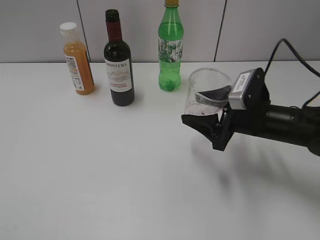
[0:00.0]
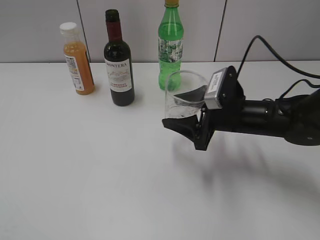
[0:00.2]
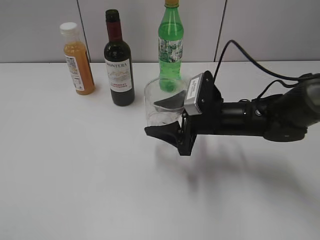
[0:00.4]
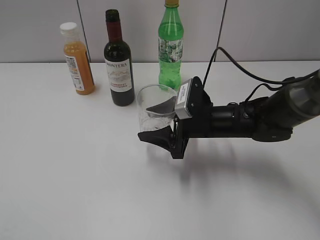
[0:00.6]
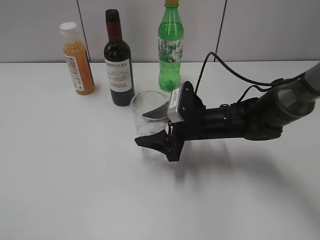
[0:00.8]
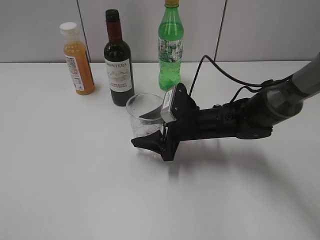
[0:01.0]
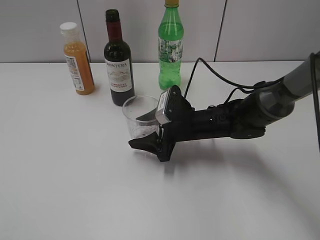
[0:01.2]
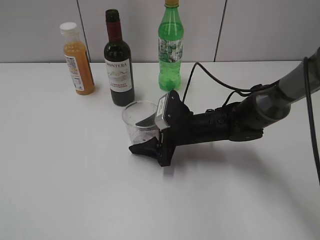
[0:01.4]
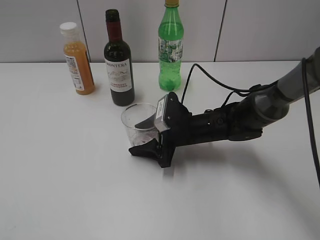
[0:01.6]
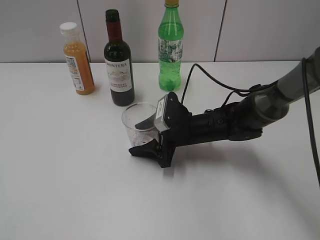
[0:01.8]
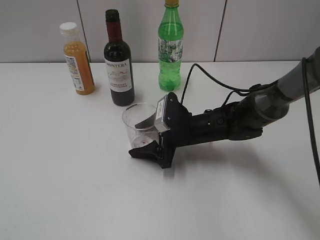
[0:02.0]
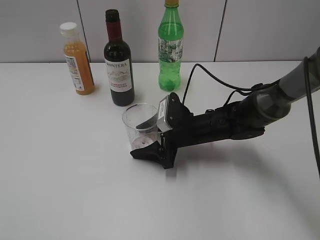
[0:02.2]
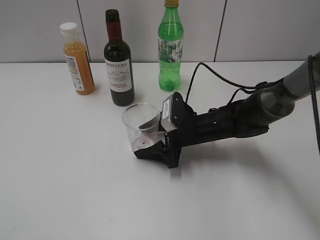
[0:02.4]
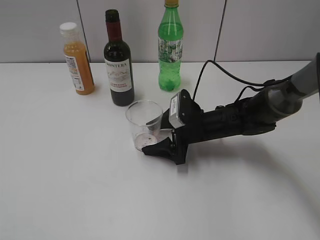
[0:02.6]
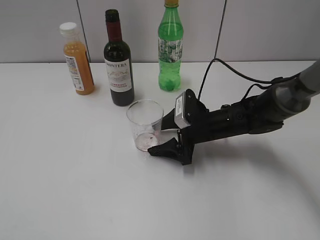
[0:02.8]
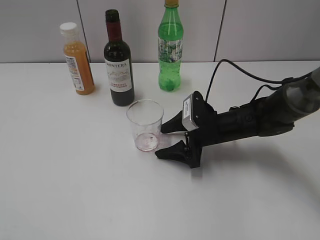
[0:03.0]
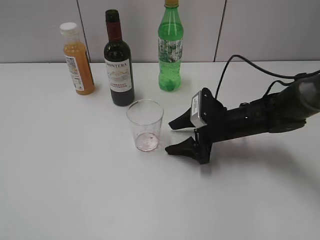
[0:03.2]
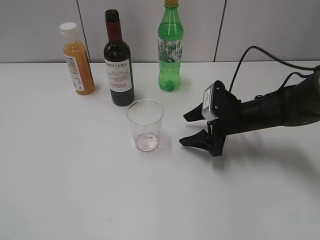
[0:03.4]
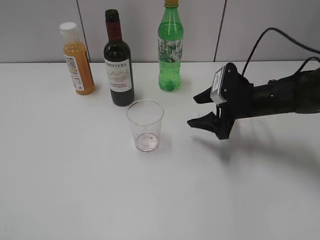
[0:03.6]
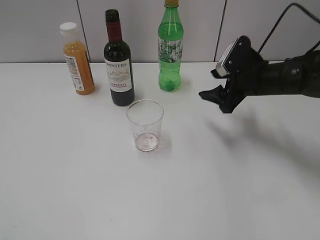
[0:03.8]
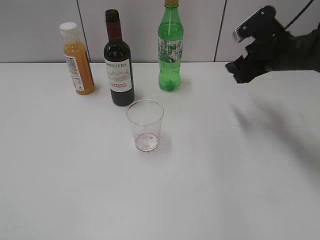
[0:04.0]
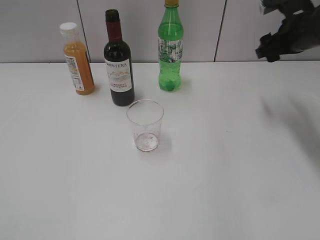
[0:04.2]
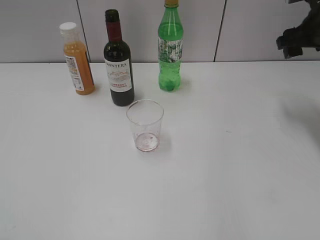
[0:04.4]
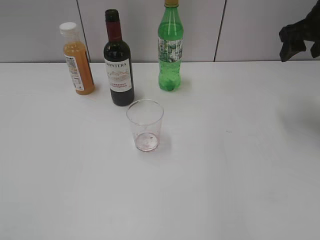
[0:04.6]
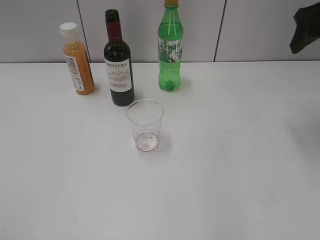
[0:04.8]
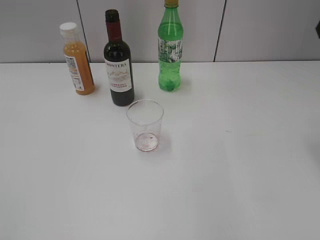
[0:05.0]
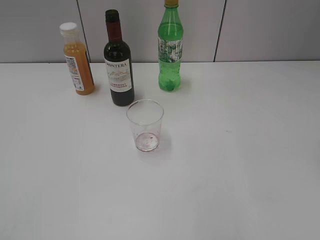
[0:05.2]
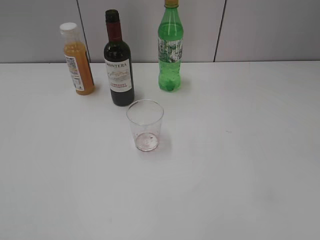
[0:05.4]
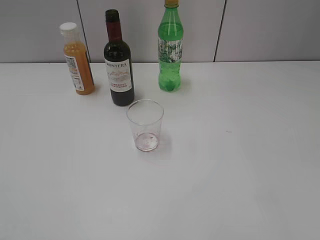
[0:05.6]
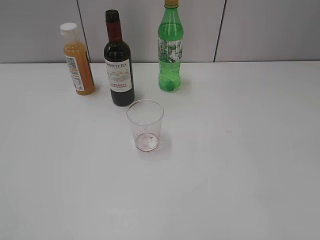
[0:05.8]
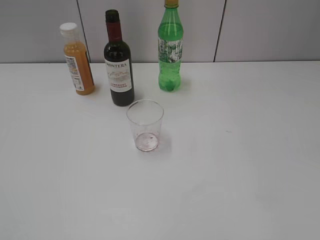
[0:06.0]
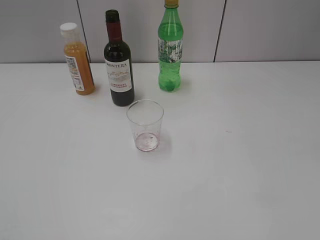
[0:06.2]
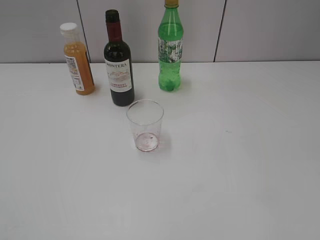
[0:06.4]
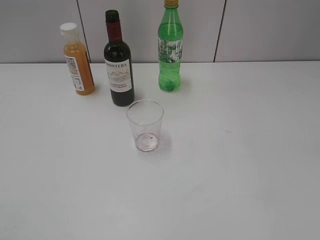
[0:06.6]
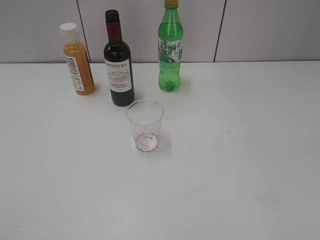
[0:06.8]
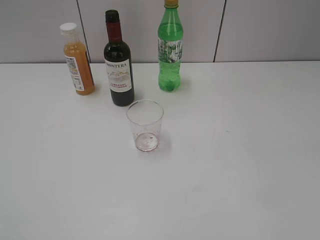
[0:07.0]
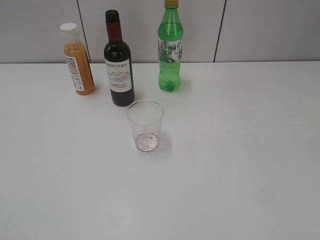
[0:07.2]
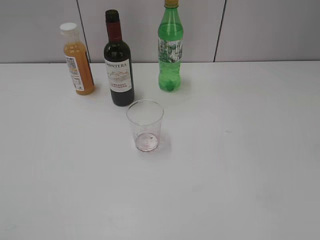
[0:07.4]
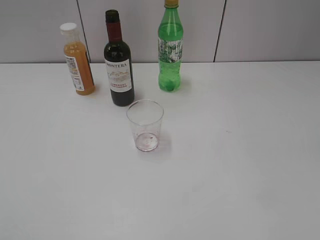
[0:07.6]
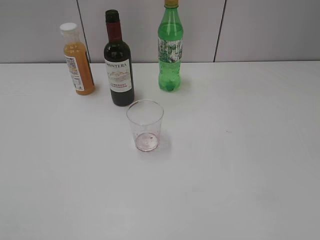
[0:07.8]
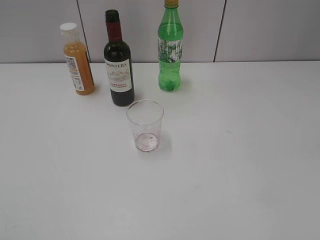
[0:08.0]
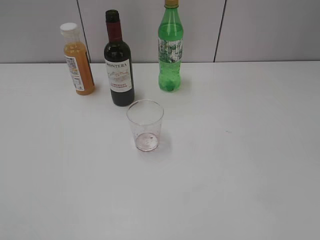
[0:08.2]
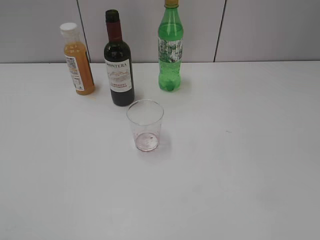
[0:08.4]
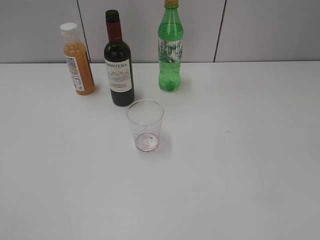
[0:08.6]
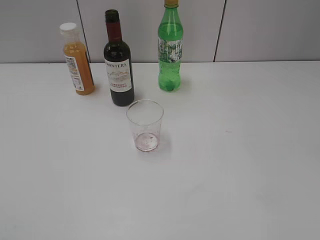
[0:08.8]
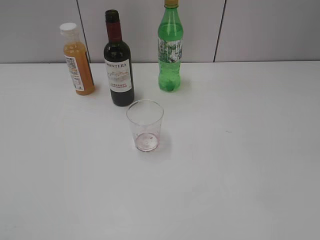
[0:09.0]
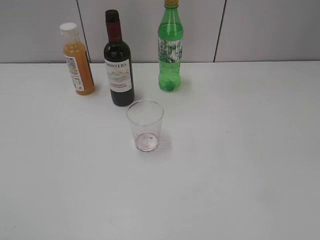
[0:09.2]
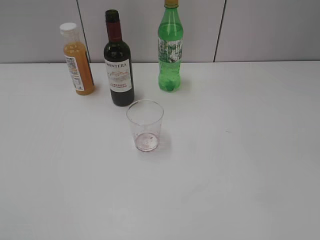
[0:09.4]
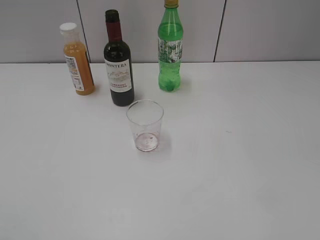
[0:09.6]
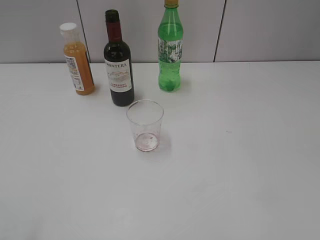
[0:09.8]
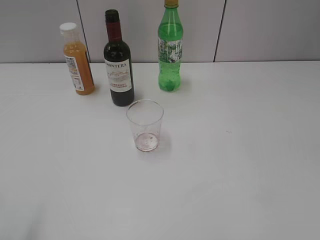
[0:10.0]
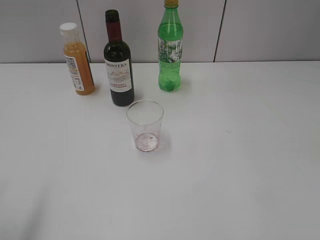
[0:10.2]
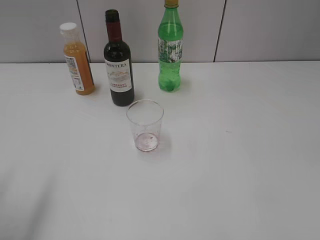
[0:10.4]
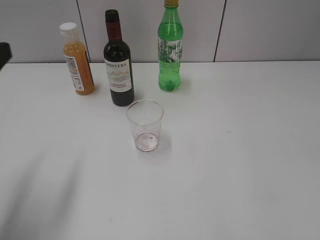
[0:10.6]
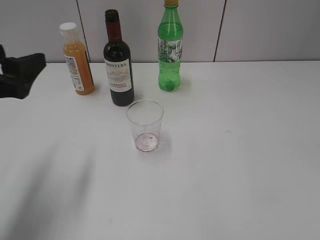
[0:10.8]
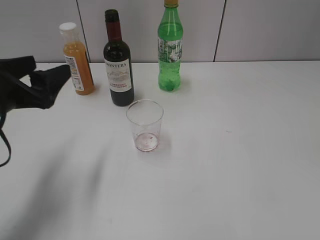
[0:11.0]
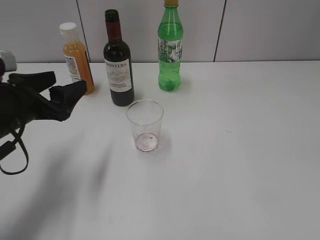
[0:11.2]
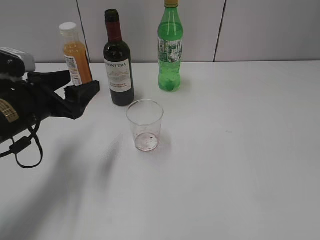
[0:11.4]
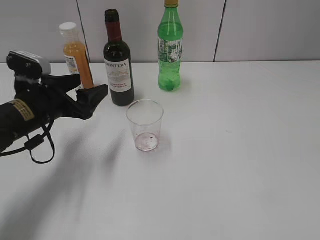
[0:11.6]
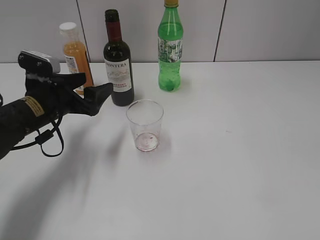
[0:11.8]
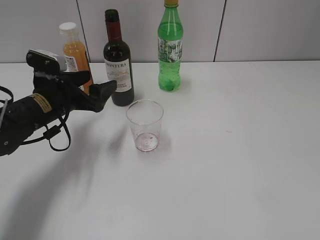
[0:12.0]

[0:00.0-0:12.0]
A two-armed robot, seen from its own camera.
Step, 0:00.0 to 0:03.0: Place the transparent cup on the table with right gripper.
0:00.0 to 0:01.6: The right gripper is displaced to the left and downward by approximately 15 cm.
0:01.6 to 0:03.0: The right gripper goes approximately 5 cm to the right, and opens its fingers.
0:03.0 to 0:04.4: The right gripper goes roughly 25 cm upward, to the right and forward.
0:04.4 to 0:06.0: The right gripper moves backward, some 35 cm.
0:07.6 to 0:09.0: The two grippers keep their place.
0:09.0 to 0:10.4: The left gripper travels forward by approximately 15 cm, and opens up.
0:10.4 to 0:12.0: The left gripper is displaced forward, downward and to the right by roughly 25 cm.

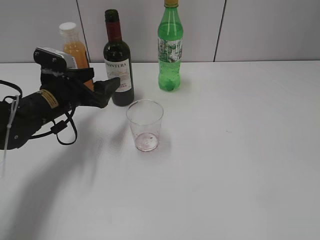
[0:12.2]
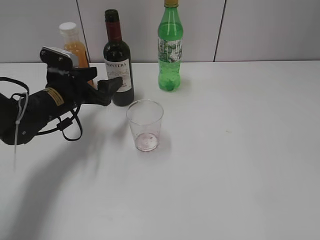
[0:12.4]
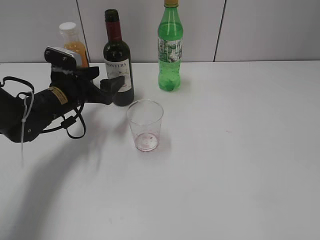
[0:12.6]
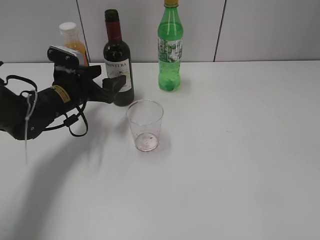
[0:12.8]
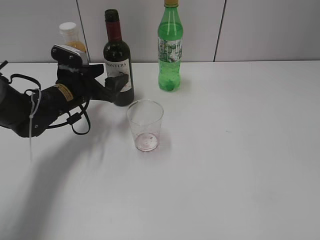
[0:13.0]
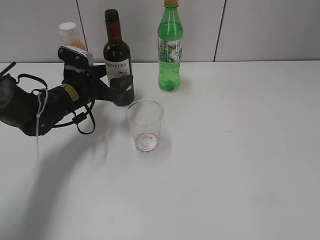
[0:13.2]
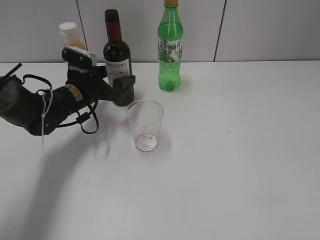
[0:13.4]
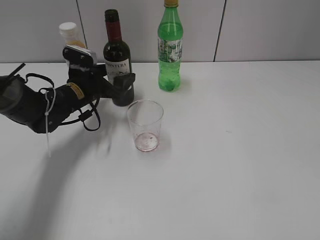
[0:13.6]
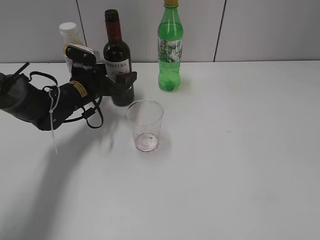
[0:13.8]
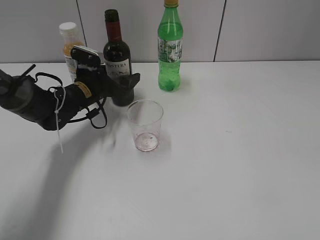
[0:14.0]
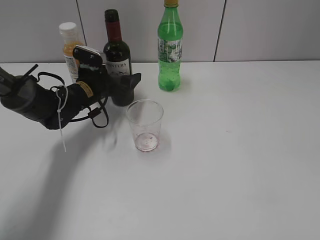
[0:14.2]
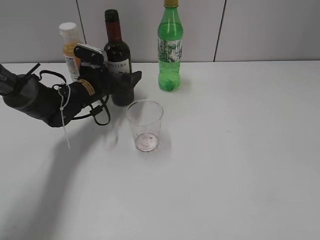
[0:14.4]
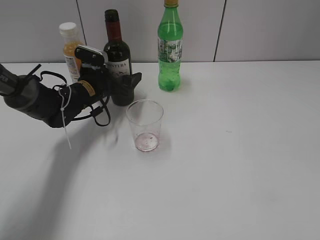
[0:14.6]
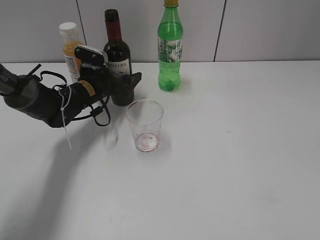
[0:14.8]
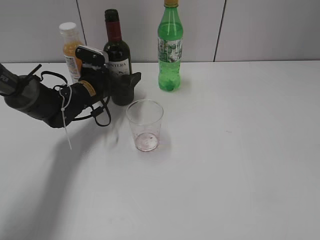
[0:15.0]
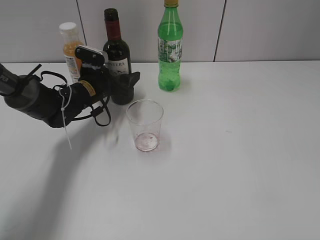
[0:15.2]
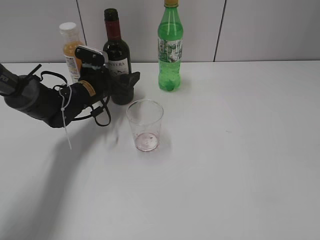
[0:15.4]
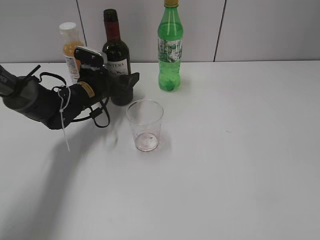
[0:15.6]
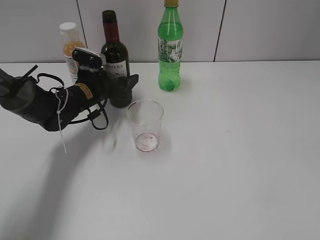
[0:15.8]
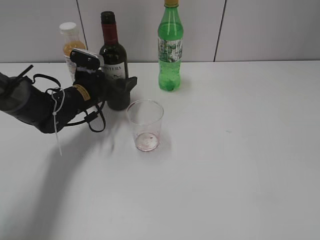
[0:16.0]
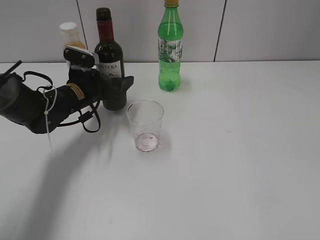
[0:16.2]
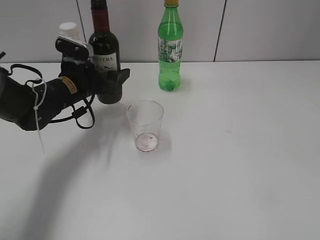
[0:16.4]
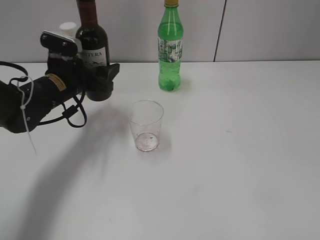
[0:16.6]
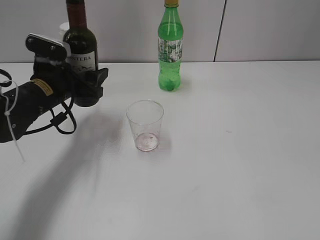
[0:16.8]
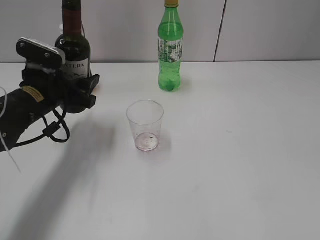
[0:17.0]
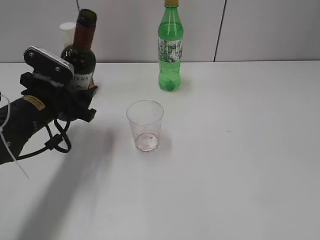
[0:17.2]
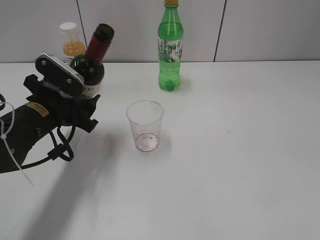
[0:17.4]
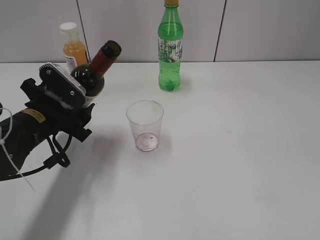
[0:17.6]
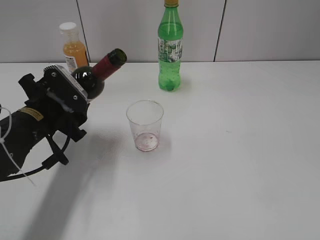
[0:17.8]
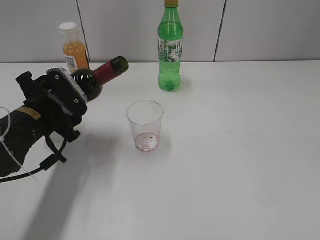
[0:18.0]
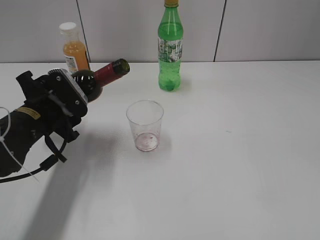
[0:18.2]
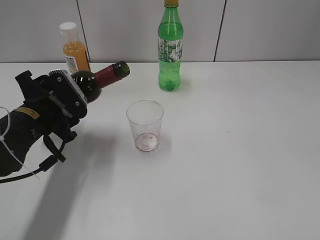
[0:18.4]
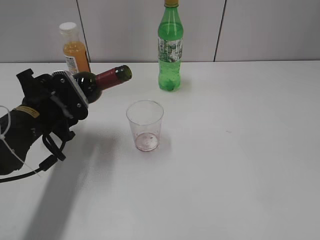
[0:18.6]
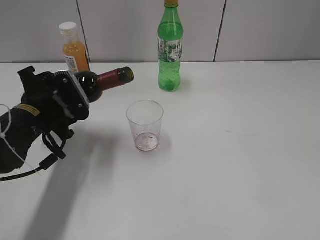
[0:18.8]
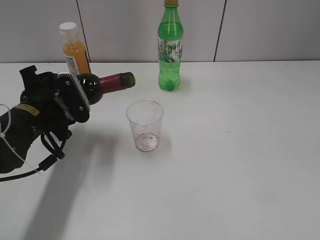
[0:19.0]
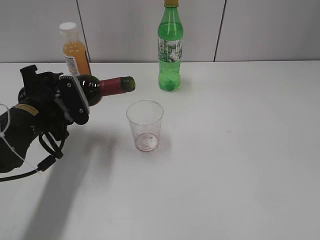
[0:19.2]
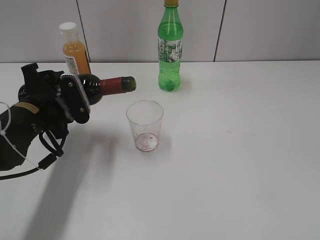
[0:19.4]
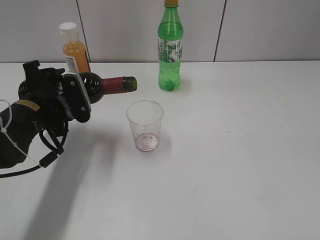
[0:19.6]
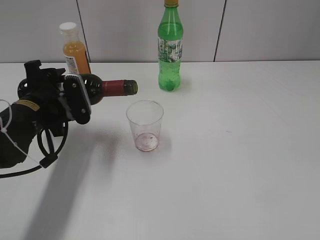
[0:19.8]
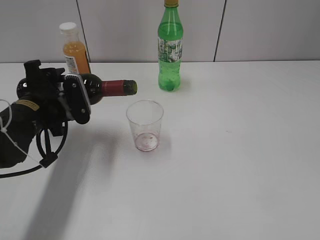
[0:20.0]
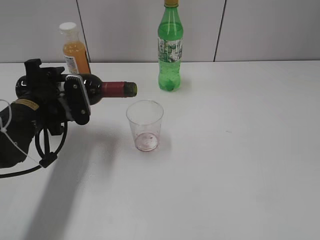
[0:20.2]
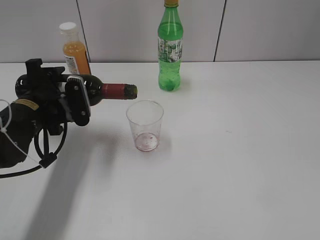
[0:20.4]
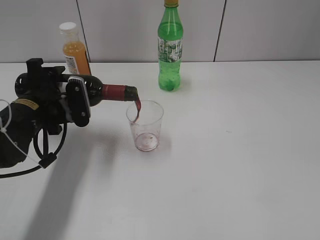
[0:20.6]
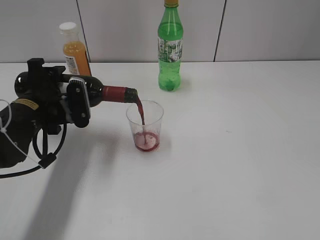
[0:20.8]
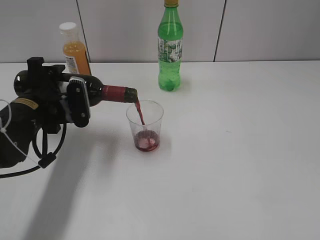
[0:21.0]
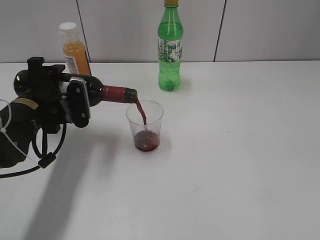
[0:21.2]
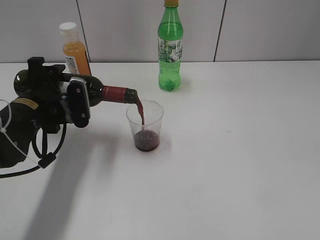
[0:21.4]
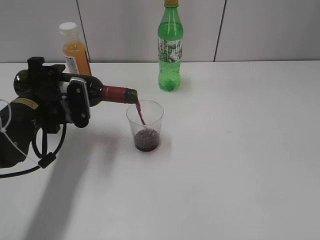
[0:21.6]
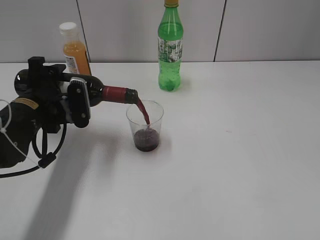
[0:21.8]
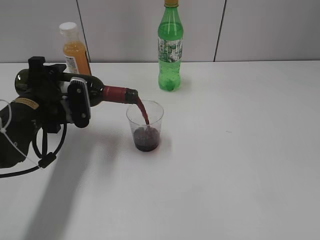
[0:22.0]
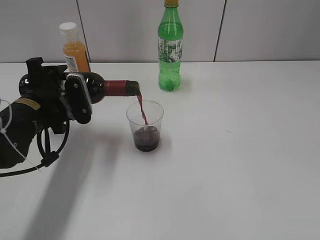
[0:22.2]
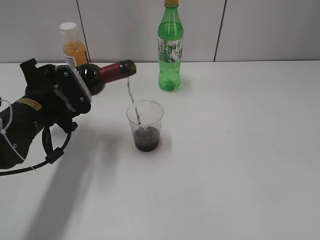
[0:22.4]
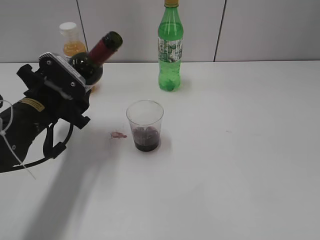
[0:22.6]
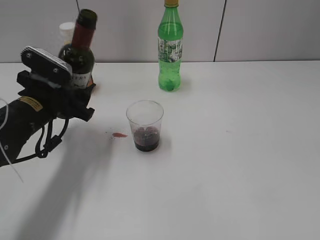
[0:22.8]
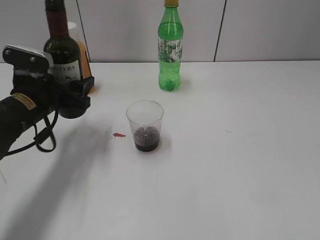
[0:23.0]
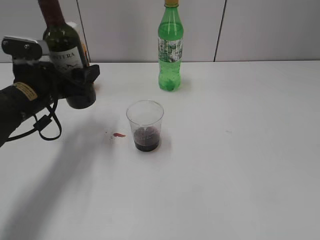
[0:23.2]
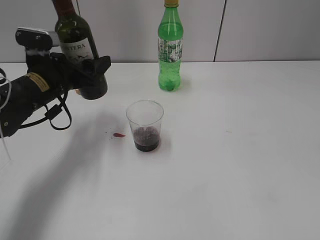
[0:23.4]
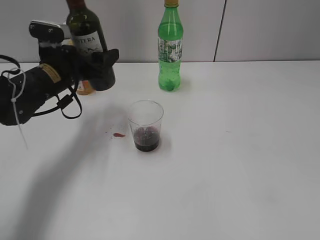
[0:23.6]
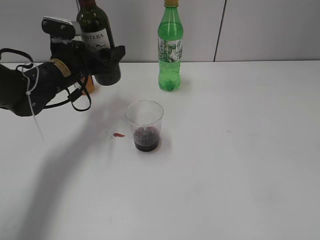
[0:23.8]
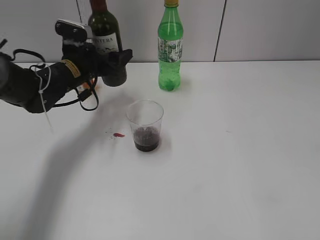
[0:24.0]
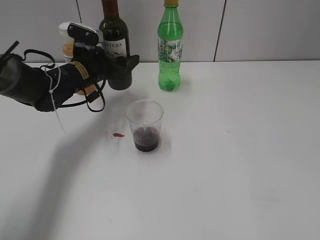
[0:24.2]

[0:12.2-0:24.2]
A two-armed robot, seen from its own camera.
Step, 0:12.2 to 0:15.8: Grasp the bottle with red wine with left gripper.
Step, 0:16.0 to 0:22.4: Pour the red wine from bottle to cup with left gripper.
0:12.2 to 0:13.8: The left gripper is displaced forward by roughly 5 cm.
0:13.8 to 0:15.2: The grippers make only small movements.
0:15.2 to 0:16.6: The left gripper goes approximately 10 cm backward and upward.
0:16.6 to 0:18.2: The left gripper shifts about 10 cm backward.
0:19.8 to 0:21.2: There are only small adjustments of the grippers.
0:22.6 to 0:24.2: The left gripper goes about 15 cm forward.
